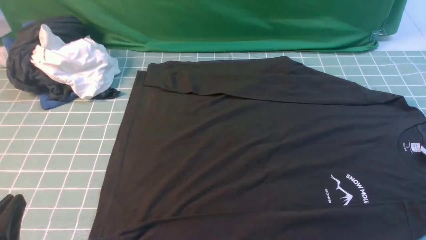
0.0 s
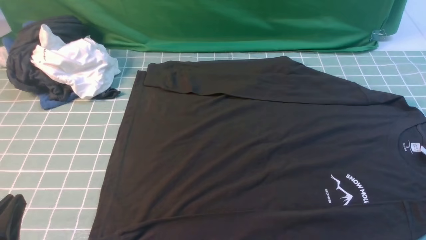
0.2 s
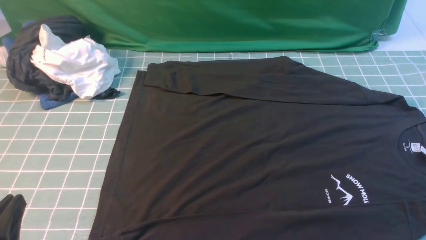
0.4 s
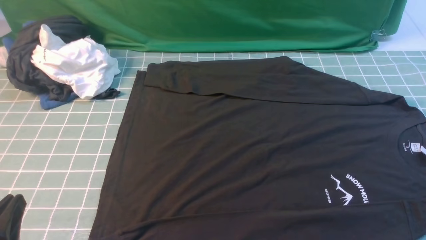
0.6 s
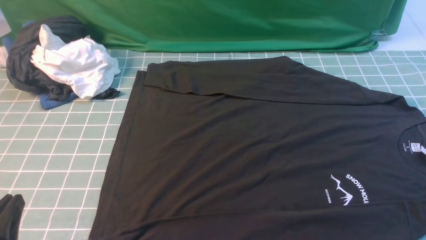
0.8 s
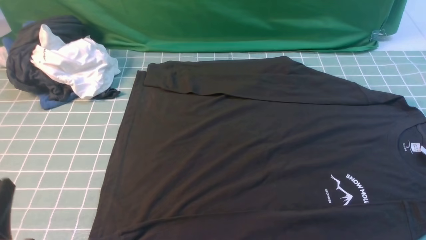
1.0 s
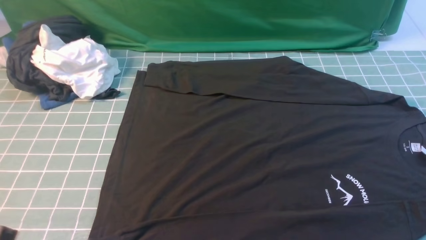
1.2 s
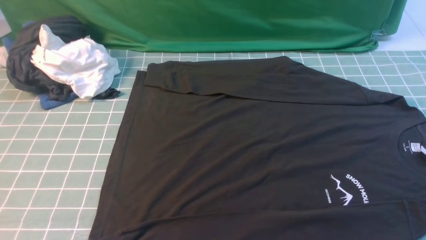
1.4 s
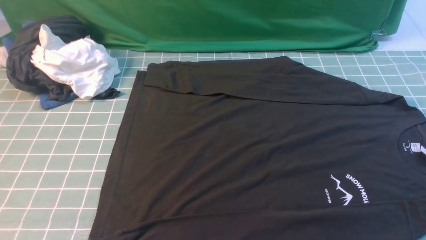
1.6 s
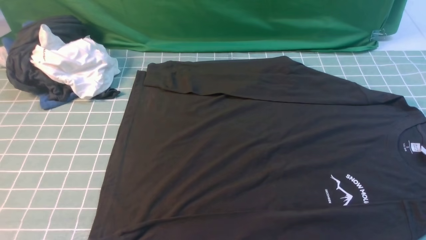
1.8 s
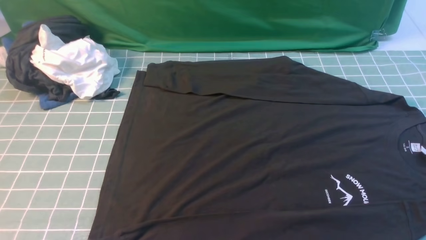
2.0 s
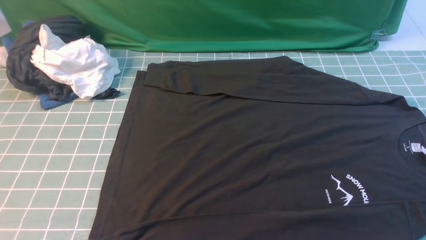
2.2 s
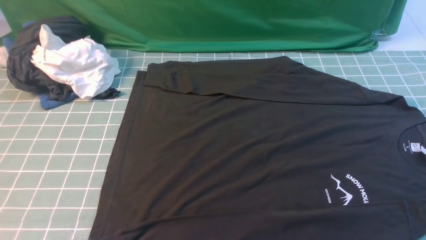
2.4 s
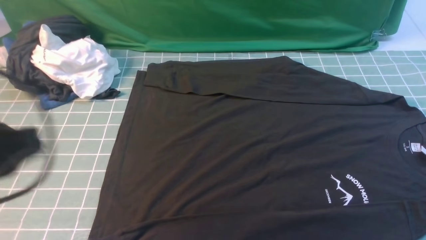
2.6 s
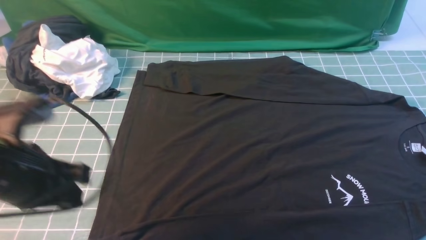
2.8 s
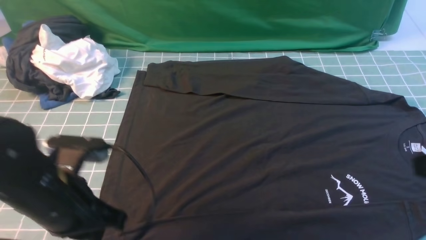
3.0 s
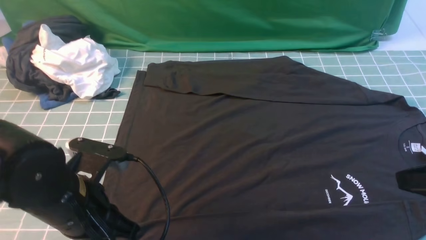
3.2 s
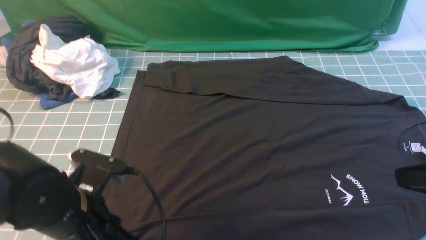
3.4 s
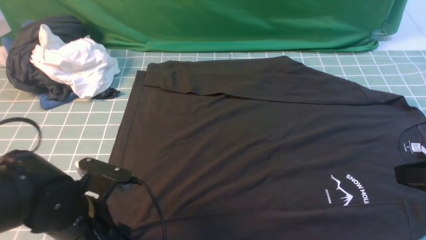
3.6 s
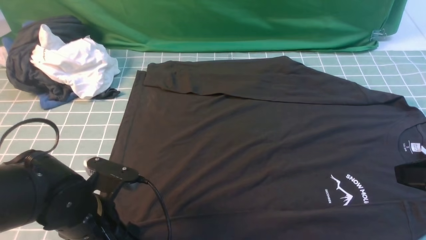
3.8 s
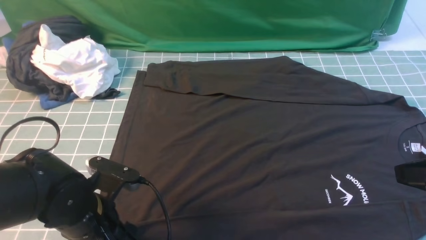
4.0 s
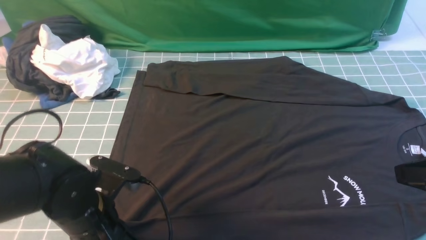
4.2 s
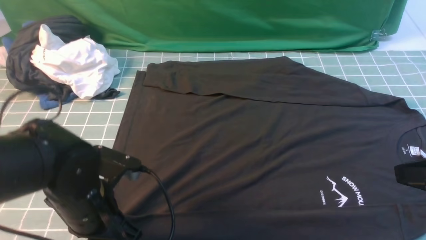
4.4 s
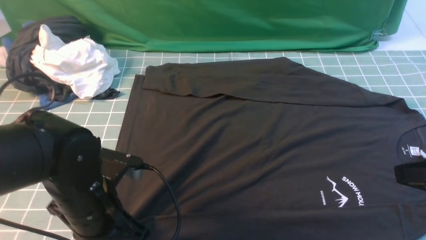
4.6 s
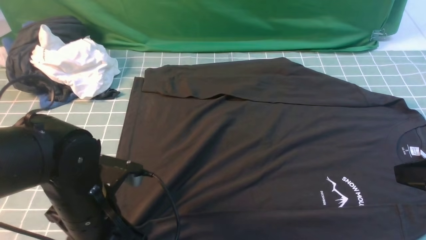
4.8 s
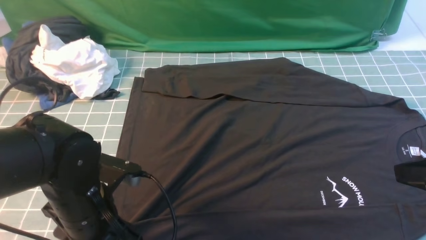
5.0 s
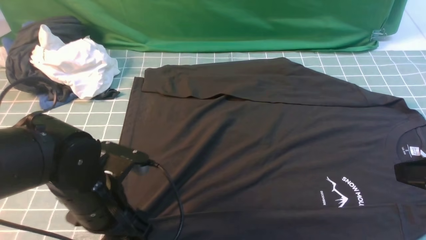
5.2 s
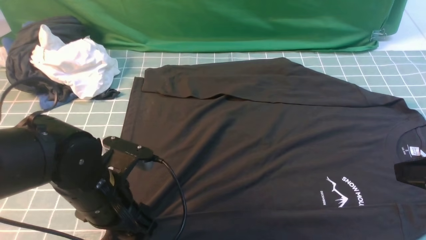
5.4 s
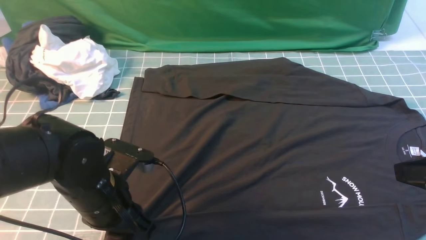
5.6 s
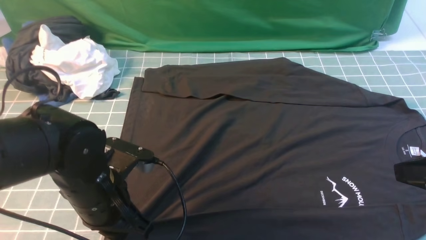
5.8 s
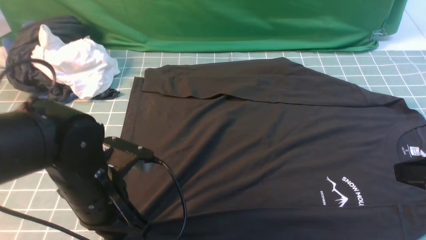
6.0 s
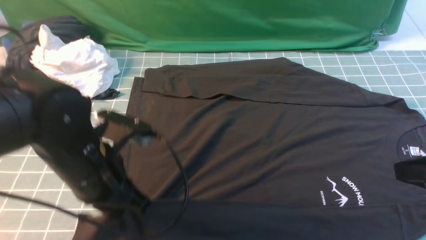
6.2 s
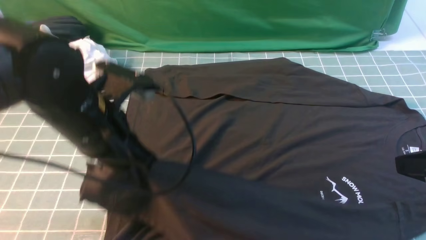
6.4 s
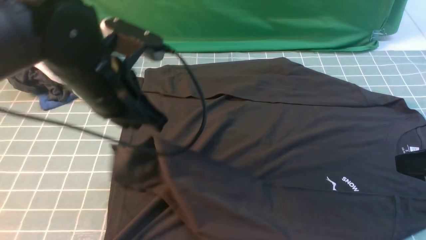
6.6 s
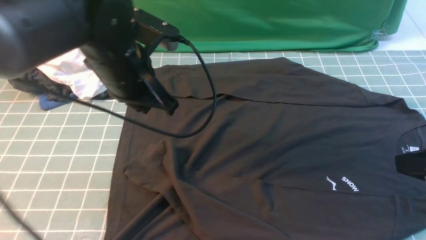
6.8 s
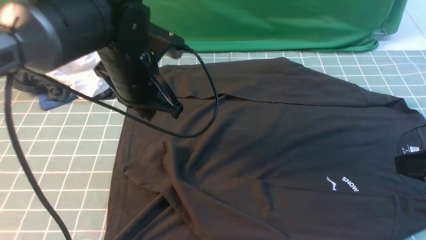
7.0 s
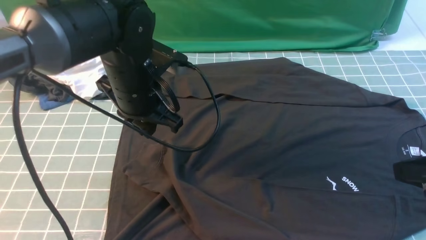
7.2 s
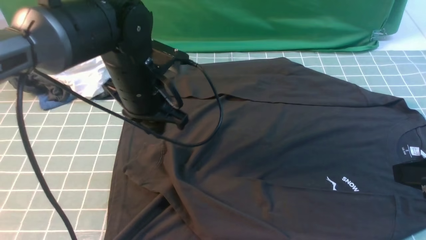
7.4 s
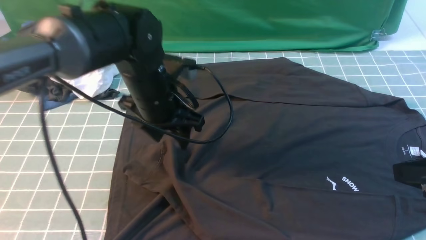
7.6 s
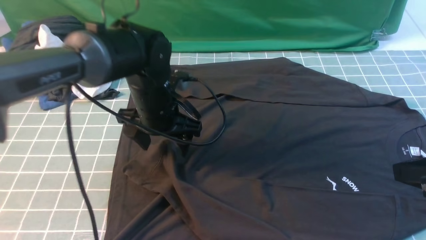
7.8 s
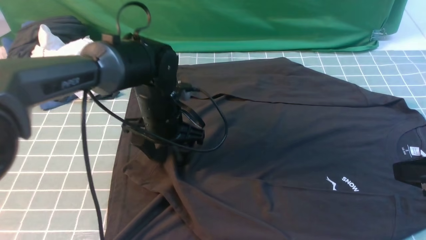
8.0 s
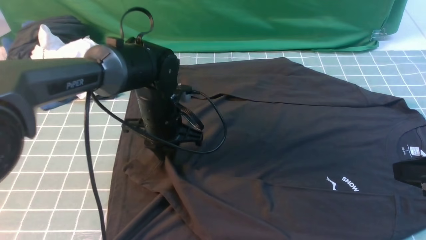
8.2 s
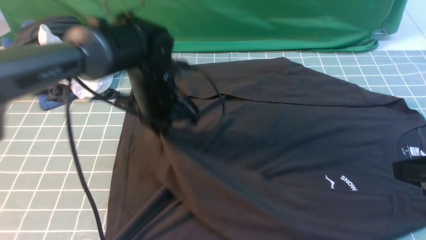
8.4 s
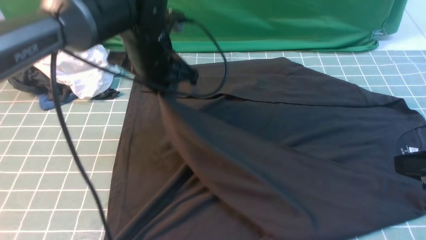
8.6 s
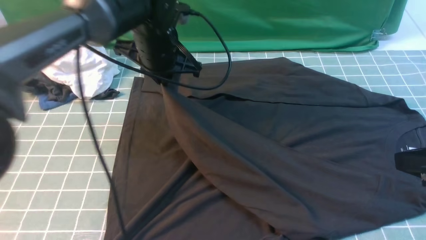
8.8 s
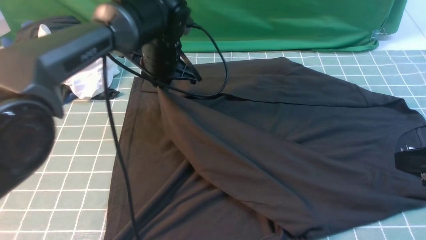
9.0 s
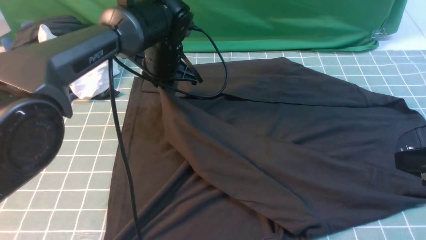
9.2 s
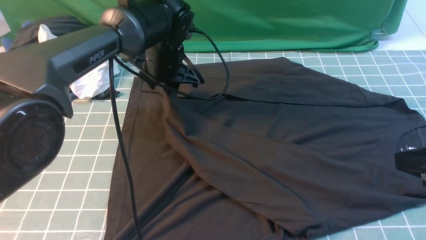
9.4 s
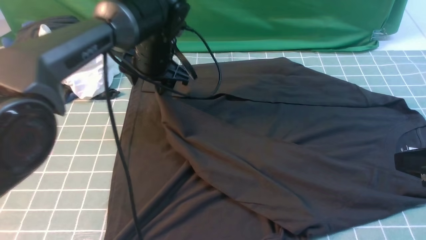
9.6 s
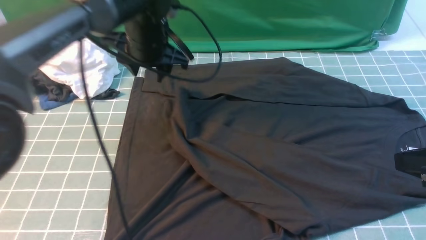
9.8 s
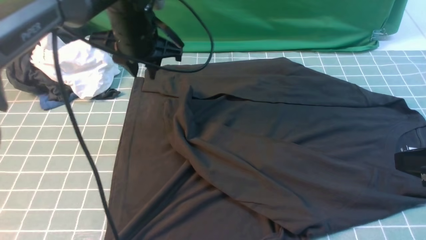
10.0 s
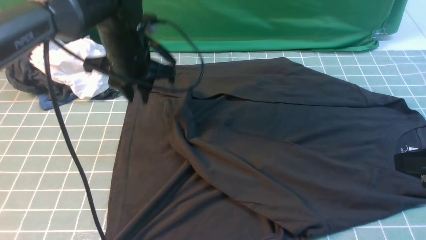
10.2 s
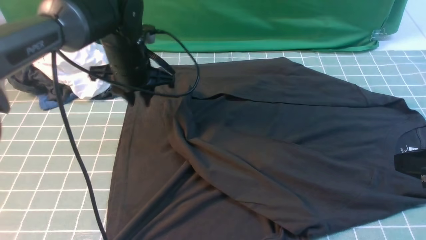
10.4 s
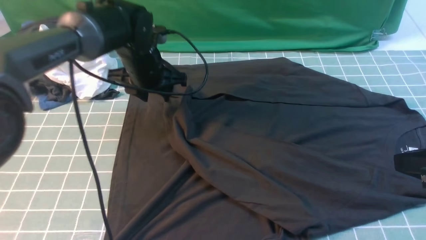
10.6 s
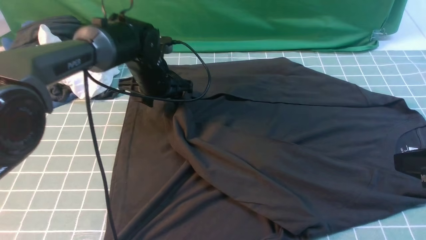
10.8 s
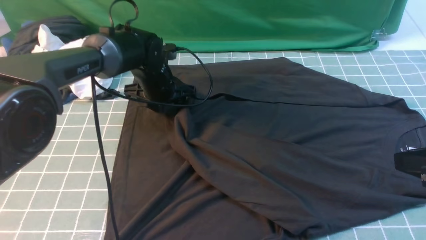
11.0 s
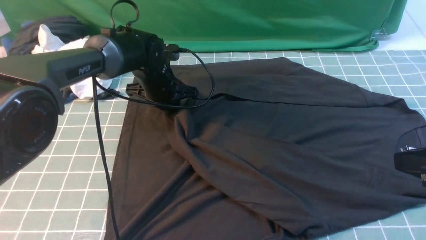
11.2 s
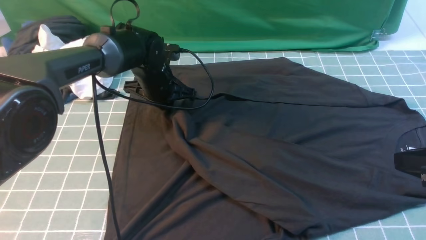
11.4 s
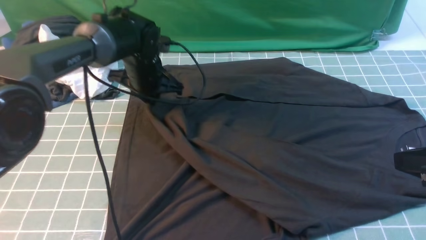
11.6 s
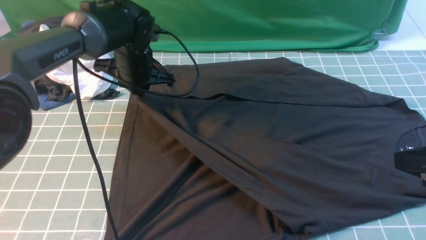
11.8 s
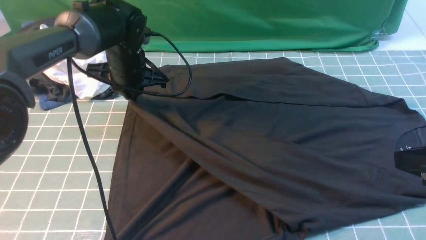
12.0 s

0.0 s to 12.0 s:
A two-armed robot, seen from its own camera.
Step, 0.0 to 6.0 s: use the left arm to clamp the cuff closest to it.
1.6 to 3.0 s: The left gripper goes some 15 cm forward and to the right.
3.0 to 4.4 s: The left gripper shifts by roughly 5 cm, and opens, then closes again.
4.4 to 6.0 s: The left gripper opens, then closes again.
6.0 to 7.6 s: The left gripper is displaced forward by approximately 15 cm, and opens.
7.6 to 9.0 s: The left gripper moves forward, about 10 cm, and closes up.
9.0 to 10.4 s: The left gripper opens up.
10.4 to 12.0 s: The left gripper closes up.

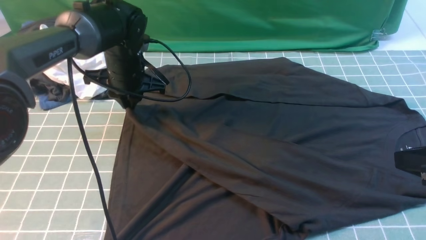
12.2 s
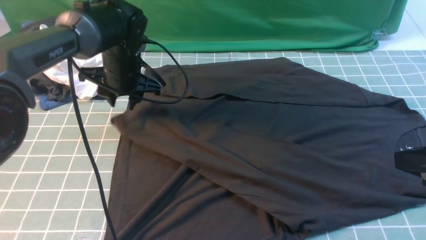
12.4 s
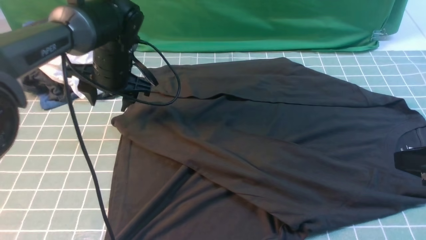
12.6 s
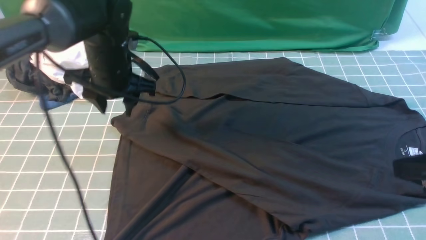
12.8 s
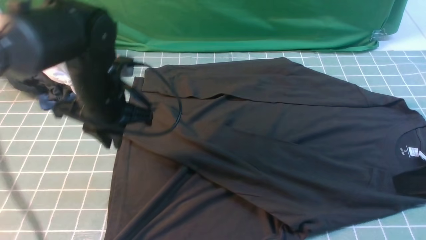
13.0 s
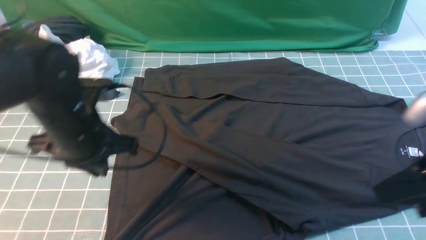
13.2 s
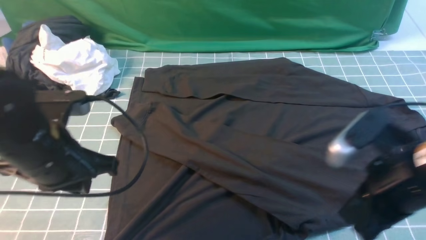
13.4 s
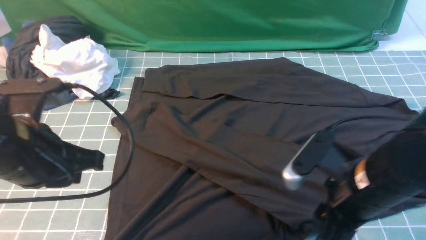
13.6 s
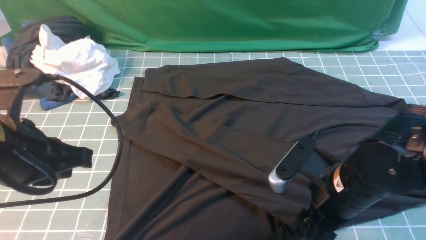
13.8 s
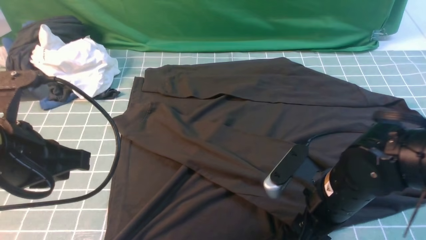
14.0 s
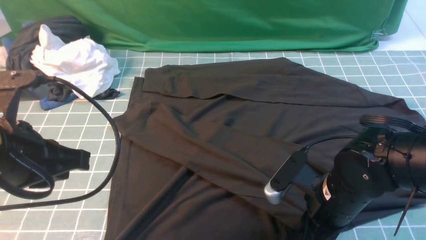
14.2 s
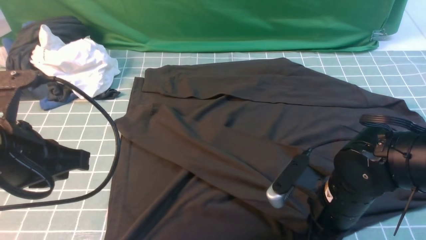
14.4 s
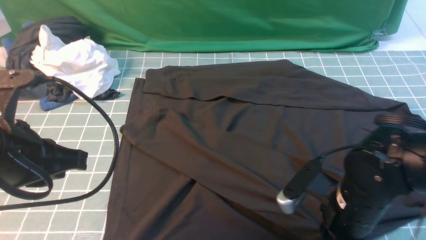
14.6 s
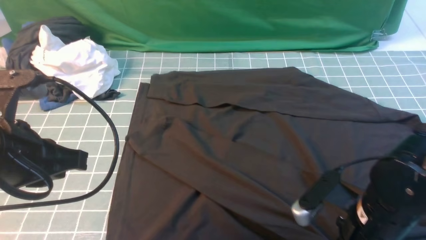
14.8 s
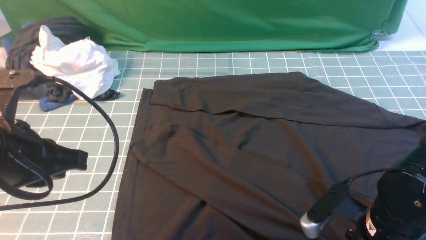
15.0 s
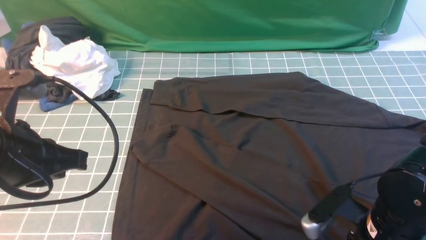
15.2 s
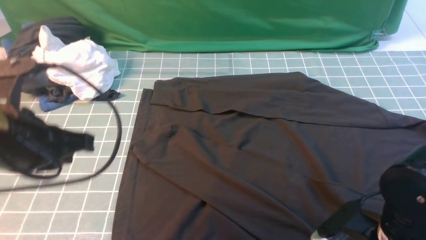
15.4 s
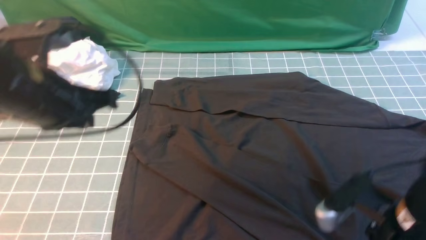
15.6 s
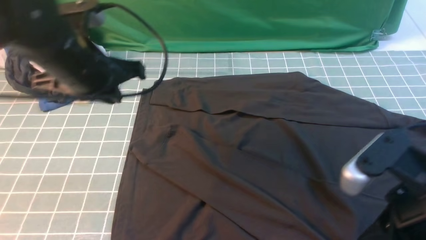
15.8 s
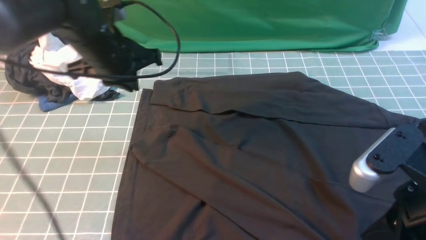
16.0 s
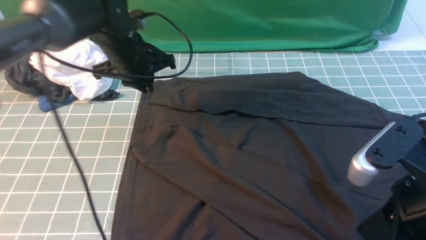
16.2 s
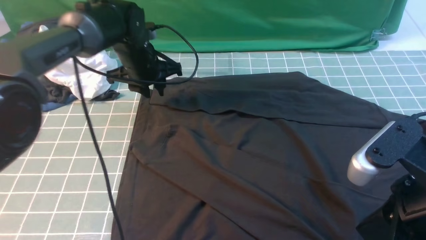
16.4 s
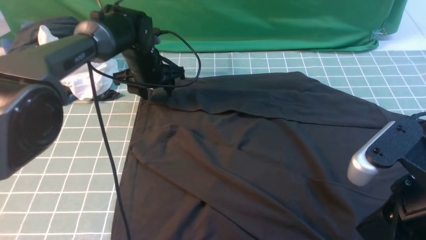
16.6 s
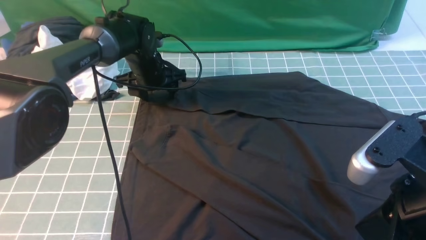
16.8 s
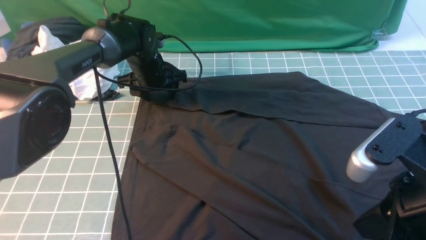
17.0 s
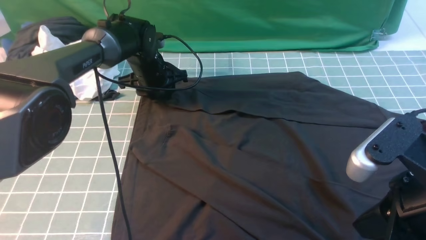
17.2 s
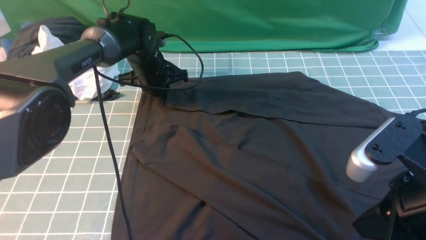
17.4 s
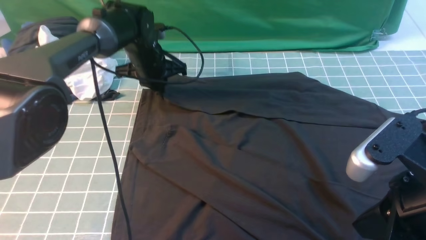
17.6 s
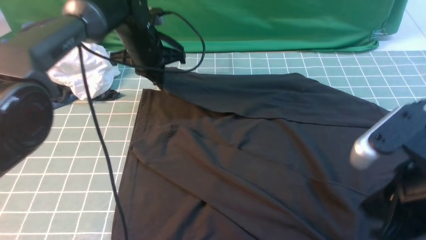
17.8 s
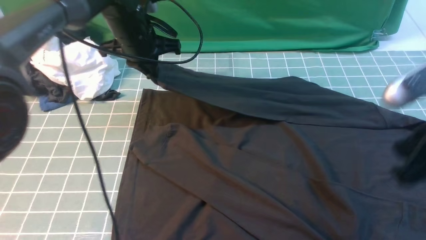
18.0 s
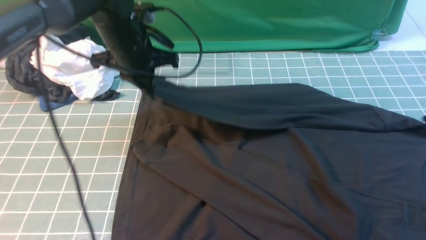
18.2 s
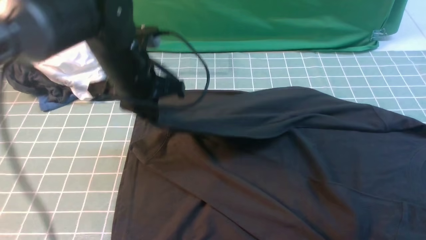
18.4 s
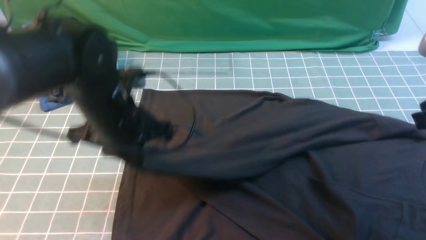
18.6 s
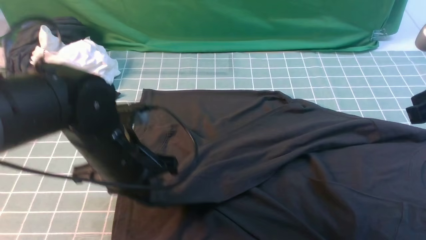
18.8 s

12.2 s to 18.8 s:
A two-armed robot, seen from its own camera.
Step, 12.8 to 17.6 s: use the left arm to clamp the cuff farthest from it.
12.2 to 13.8 s: The right gripper moves to the left and downward, roughly 15 cm, and opens; the left gripper is displaced backward by approximately 25 cm, and opens, then closes once more.
13.8 to 15.4 s: The right gripper heads backward, covering some 5 cm, and closes, then opens again.
15.4 to 17.2 s: The left gripper is displaced forward and downward by roughly 35 cm, and opens up; the right gripper travels upward by approximately 10 cm, and closes its fingers.
17.2 to 18.8 s: The left gripper is displaced backward by about 25 cm, and closes. Meanwhile the right gripper goes approximately 10 cm forward and to the right.
